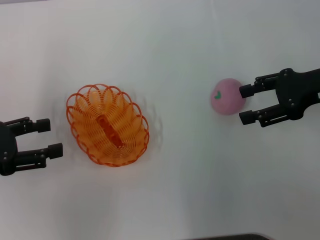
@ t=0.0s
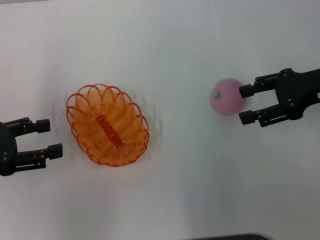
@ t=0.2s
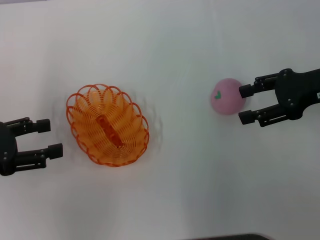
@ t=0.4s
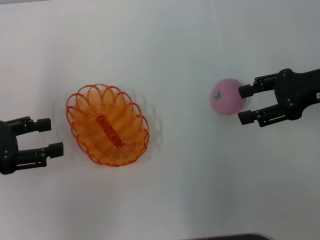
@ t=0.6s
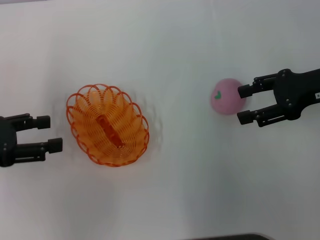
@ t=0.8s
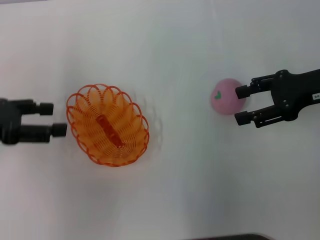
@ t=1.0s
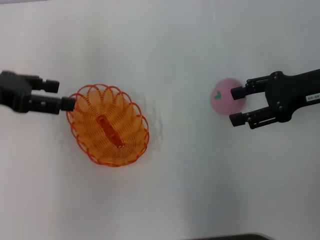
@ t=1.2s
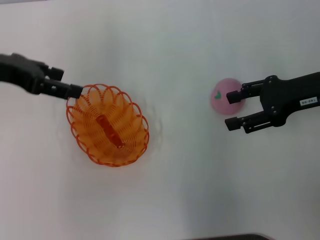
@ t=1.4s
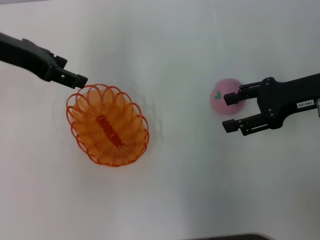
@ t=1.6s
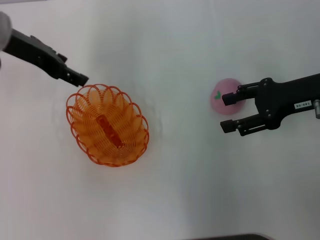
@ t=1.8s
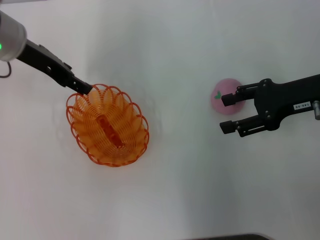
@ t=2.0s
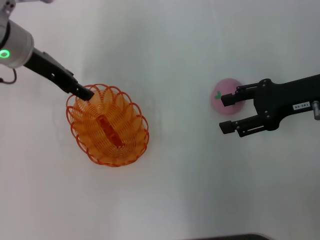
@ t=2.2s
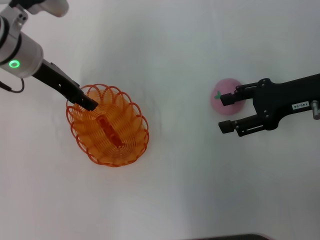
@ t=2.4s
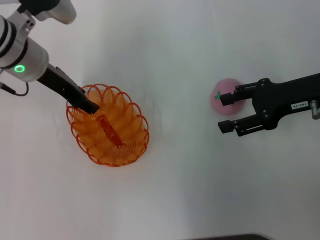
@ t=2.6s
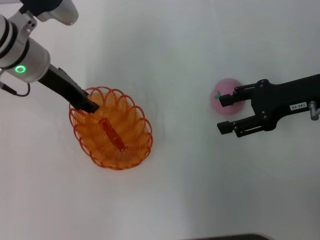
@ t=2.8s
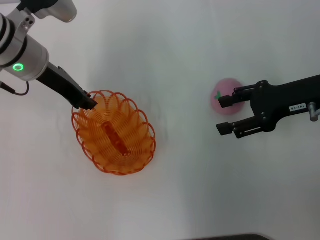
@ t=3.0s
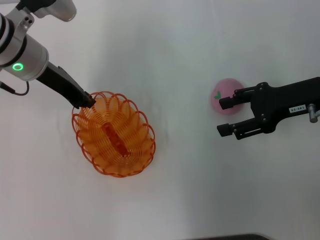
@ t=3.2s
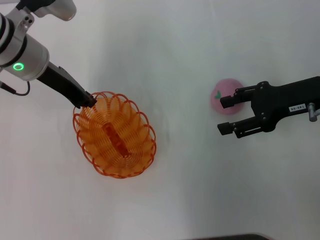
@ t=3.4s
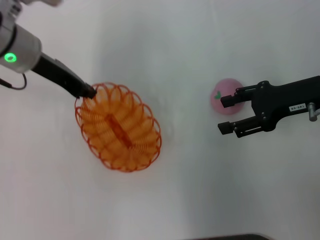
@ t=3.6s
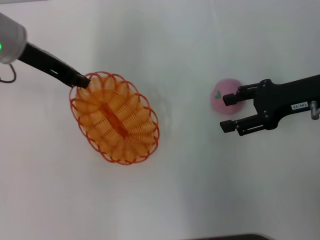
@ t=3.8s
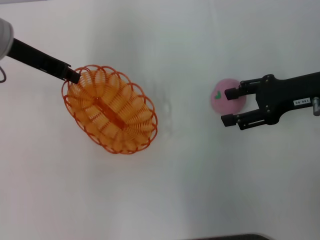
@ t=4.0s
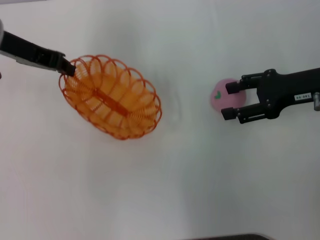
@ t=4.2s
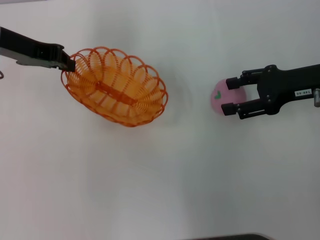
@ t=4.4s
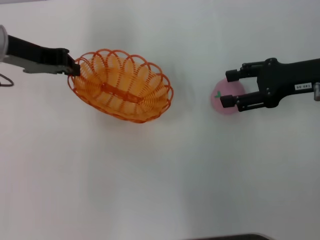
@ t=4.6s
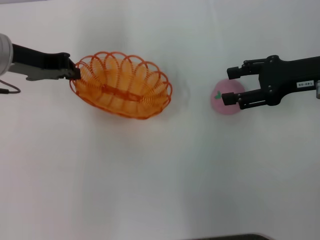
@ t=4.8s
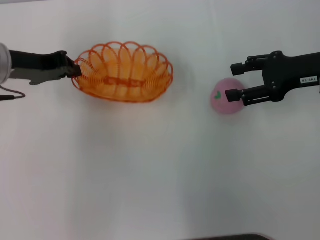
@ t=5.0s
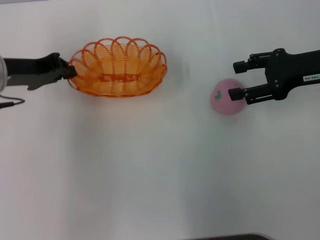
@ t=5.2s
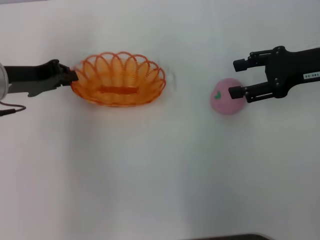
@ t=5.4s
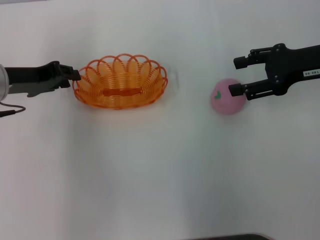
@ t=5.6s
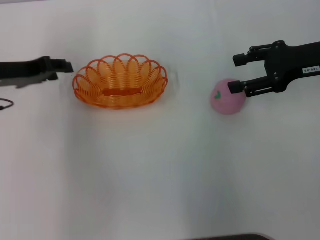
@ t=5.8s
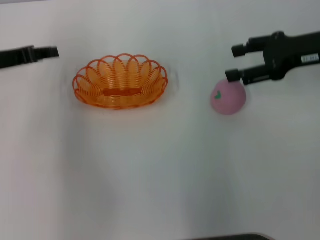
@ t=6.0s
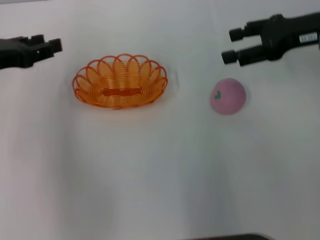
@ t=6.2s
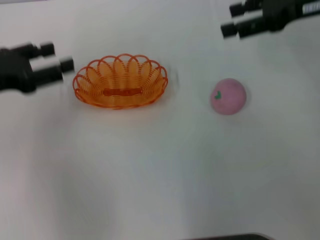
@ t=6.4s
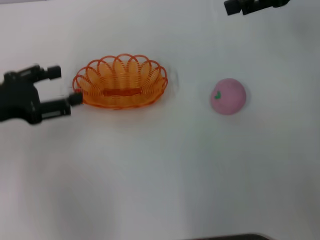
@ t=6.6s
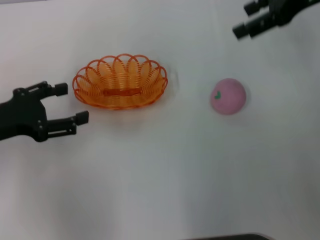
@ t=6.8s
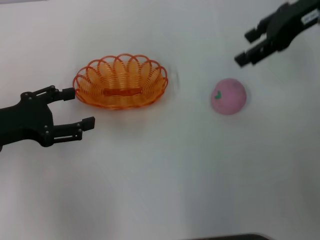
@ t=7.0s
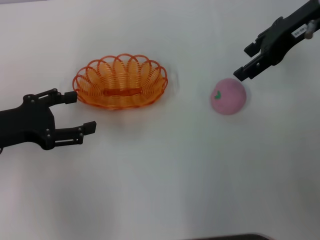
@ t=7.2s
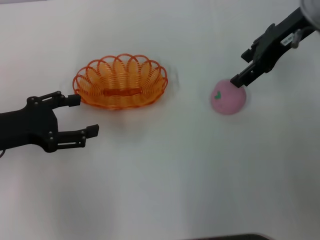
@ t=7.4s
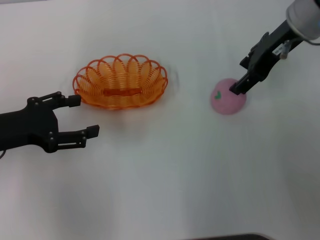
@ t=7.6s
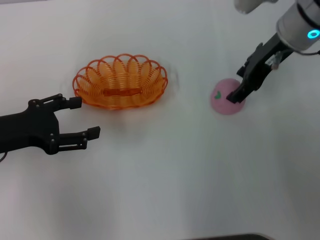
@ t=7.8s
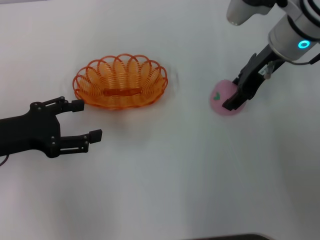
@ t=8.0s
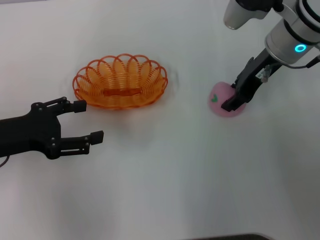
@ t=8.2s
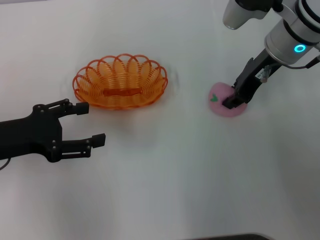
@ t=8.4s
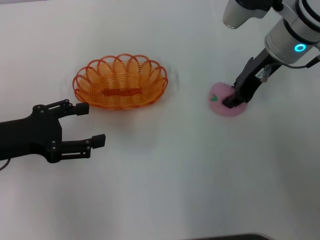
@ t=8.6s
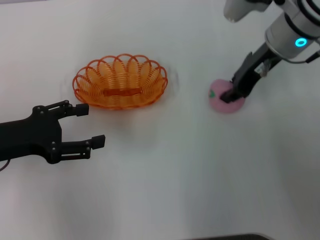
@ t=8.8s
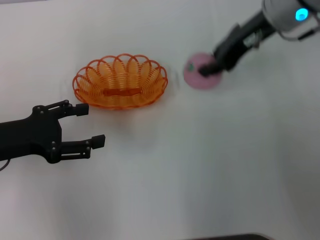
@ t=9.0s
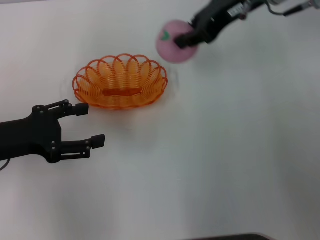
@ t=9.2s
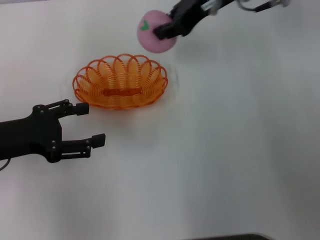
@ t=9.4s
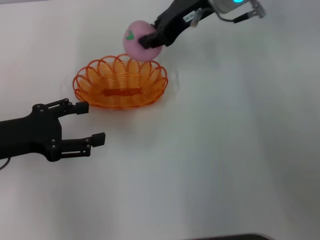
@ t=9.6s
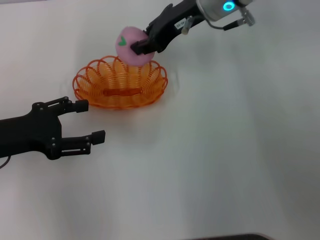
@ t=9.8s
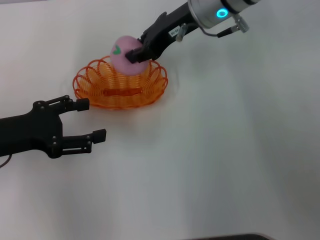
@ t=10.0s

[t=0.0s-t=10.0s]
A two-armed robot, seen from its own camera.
Step, t=0.0s to t=4.0s: Pick up the basket with the left gripper.
Step, t=4.2s to t=6.0s: Place the basket in the center of view with the left gripper.
Step, t=6.2s to t=9.0s: Pick up the peach with the right gripper.
t=0.0s to t=1.4s: The left gripper goes some 15 cm forward, upward and to the right.
t=1.4s to t=2.8s: The left gripper heads to the right and downward, covering about 10 cm.
t=2.8s to t=4.2s: The left gripper is displaced upward by some 5 cm, and closes its fingers.
t=4.2s to t=5.8s: The left gripper heads downward, covering about 5 cm, and opens.
t=5.8s to t=7.2s: The left gripper heads backward, covering about 10 cm, and opens, while the right gripper goes about 10 cm upward and to the left.
t=7.2s to t=8.6s: The right gripper moves downward, some 5 cm, and closes up.
t=8.6s to t=10.0s: The right gripper heads to the left, covering approximately 10 cm.

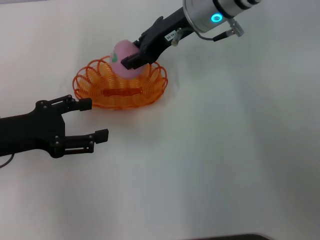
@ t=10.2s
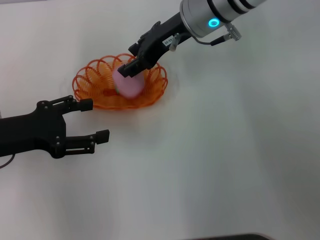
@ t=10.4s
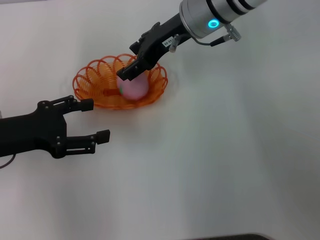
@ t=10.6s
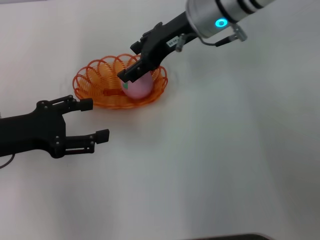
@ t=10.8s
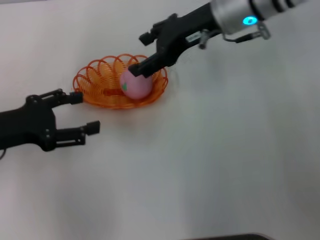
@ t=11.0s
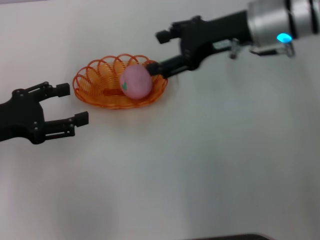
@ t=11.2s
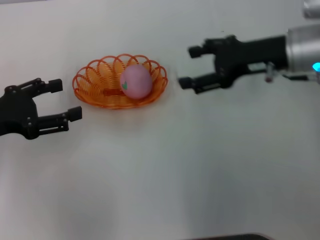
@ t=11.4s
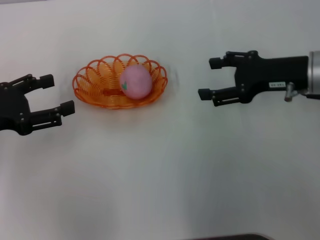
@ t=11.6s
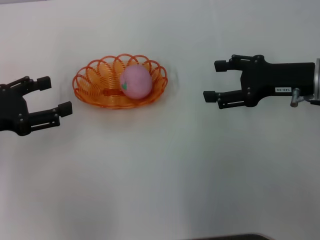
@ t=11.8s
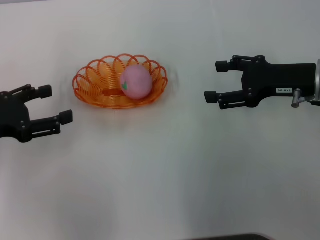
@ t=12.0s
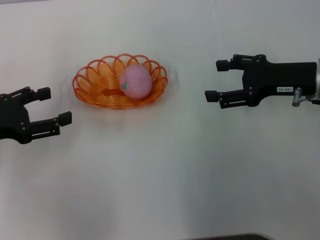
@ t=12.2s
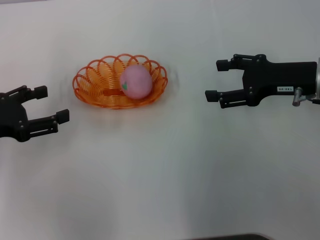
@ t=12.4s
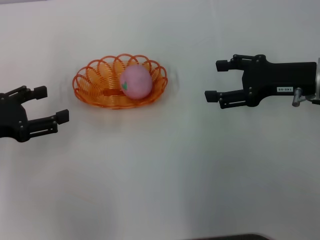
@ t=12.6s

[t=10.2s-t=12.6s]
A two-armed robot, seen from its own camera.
t=10.2s to t=11.4s: The right gripper heads to the right and backward, covering some 15 cm, and opens its fingers.
t=11.4s to t=12.6s: The right gripper changes place by some 5 cm.
